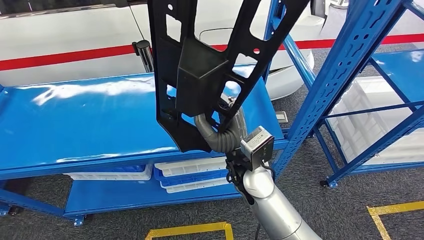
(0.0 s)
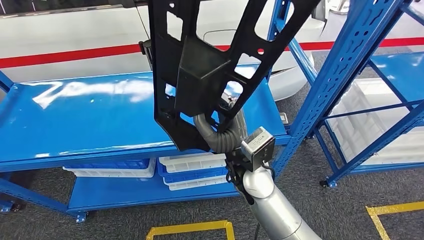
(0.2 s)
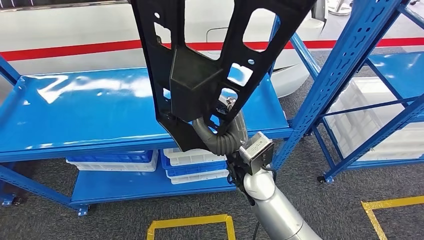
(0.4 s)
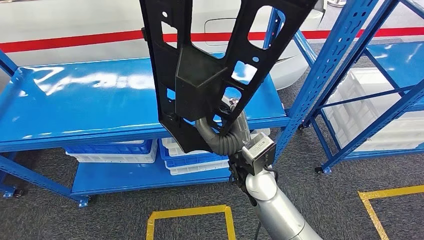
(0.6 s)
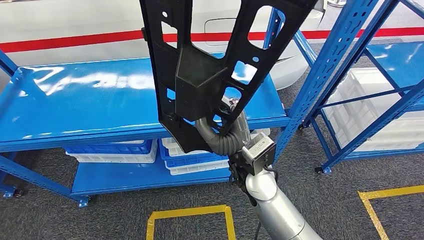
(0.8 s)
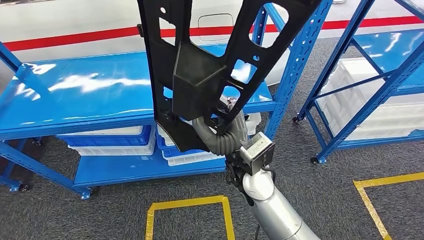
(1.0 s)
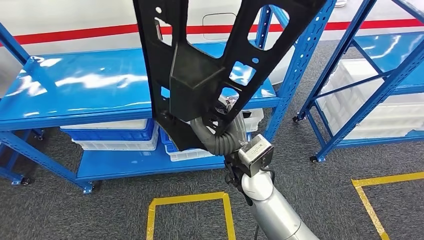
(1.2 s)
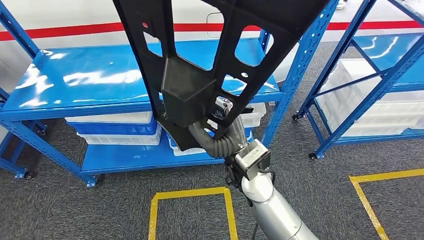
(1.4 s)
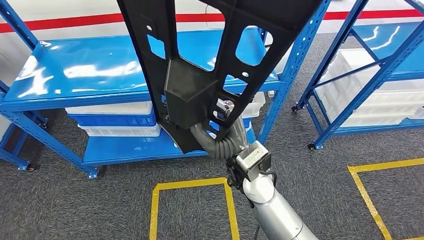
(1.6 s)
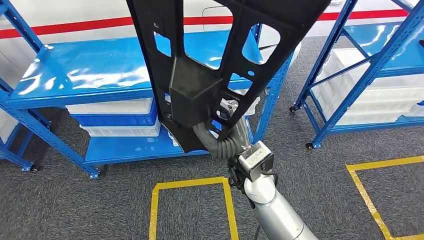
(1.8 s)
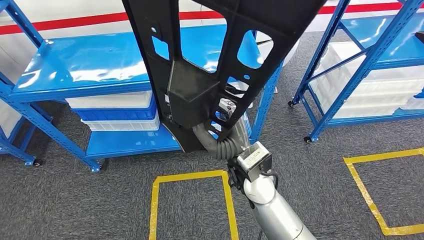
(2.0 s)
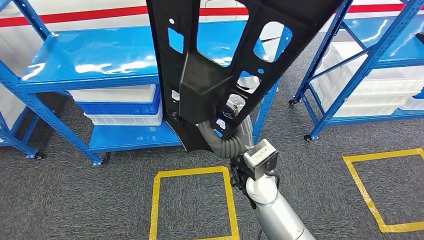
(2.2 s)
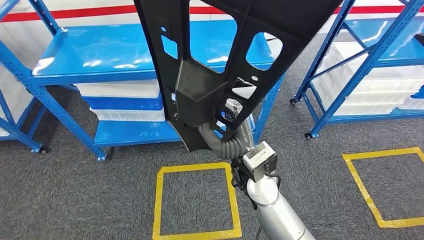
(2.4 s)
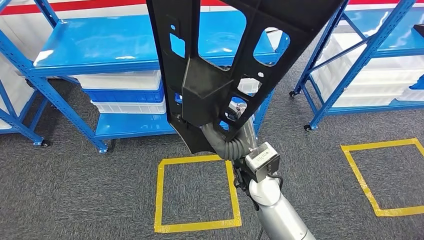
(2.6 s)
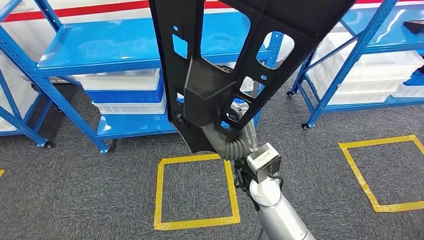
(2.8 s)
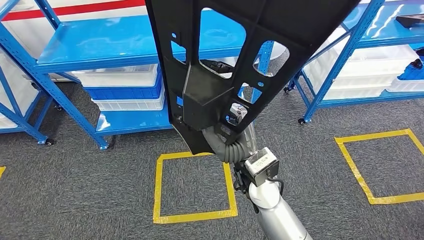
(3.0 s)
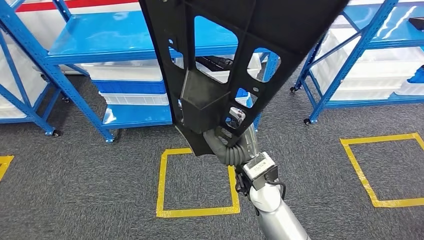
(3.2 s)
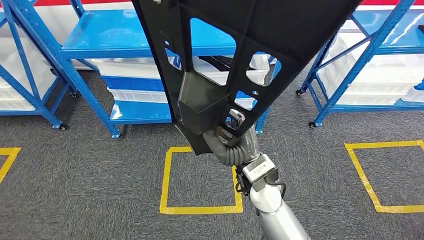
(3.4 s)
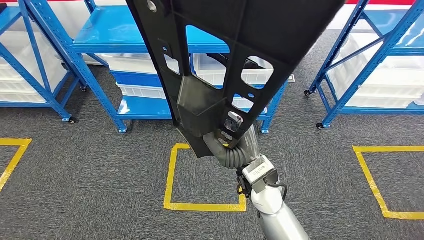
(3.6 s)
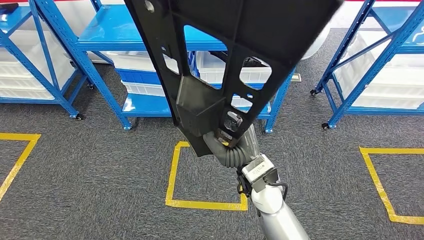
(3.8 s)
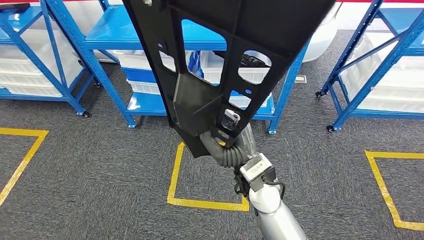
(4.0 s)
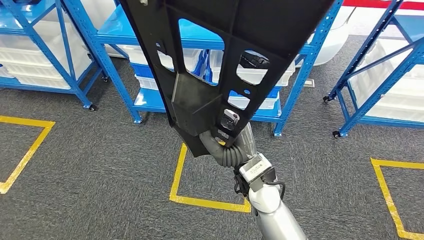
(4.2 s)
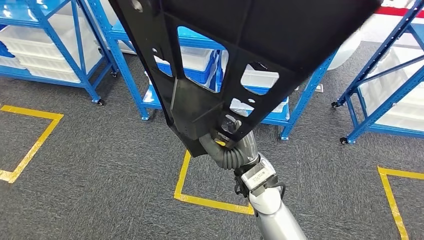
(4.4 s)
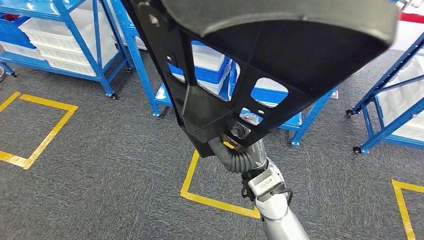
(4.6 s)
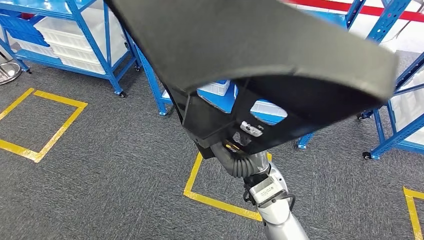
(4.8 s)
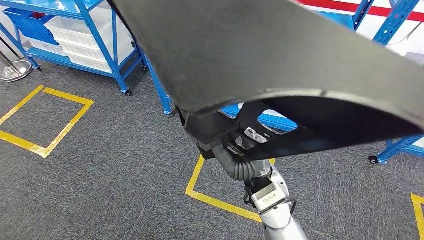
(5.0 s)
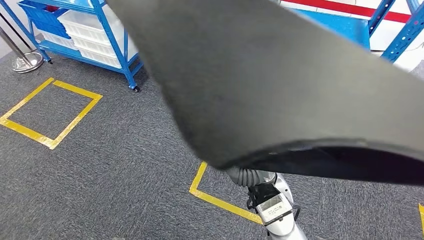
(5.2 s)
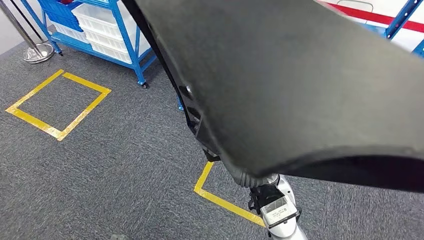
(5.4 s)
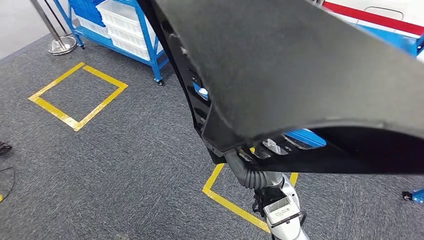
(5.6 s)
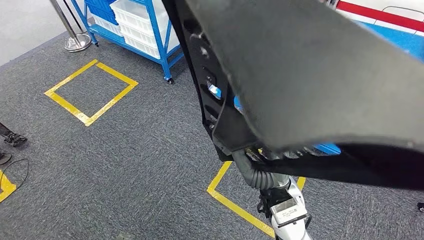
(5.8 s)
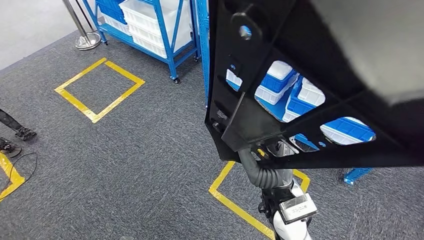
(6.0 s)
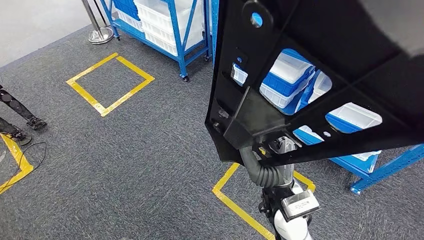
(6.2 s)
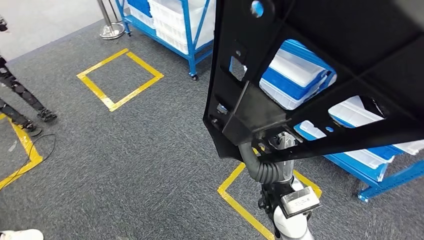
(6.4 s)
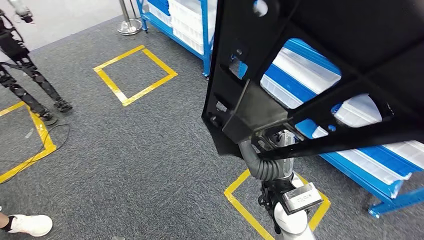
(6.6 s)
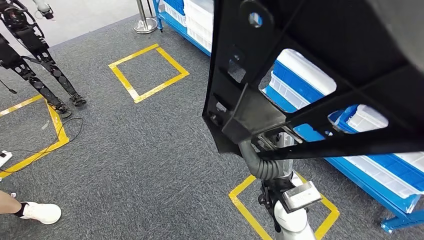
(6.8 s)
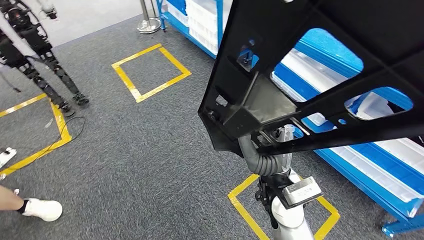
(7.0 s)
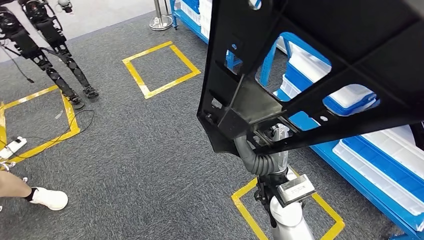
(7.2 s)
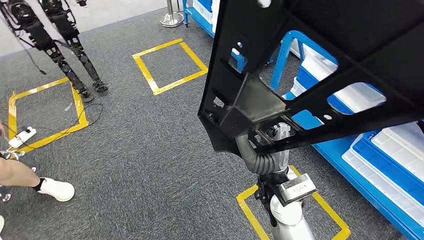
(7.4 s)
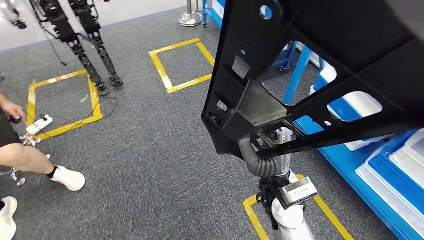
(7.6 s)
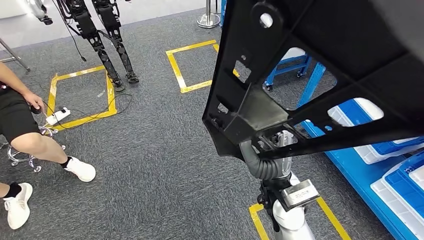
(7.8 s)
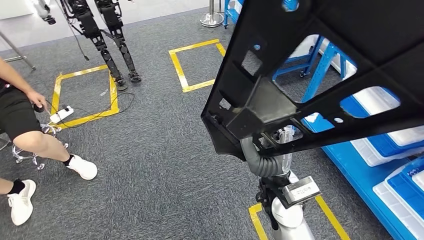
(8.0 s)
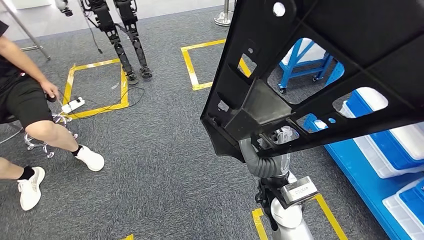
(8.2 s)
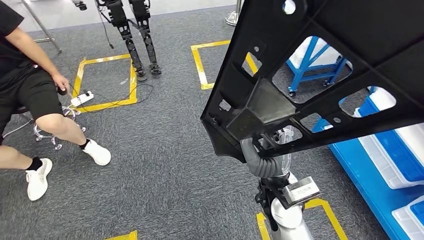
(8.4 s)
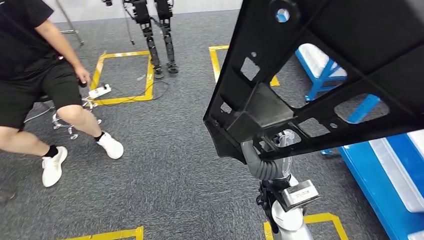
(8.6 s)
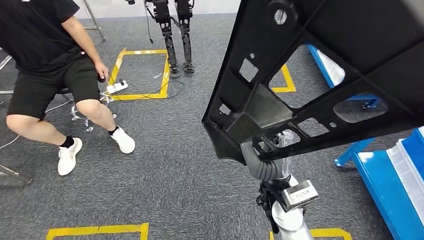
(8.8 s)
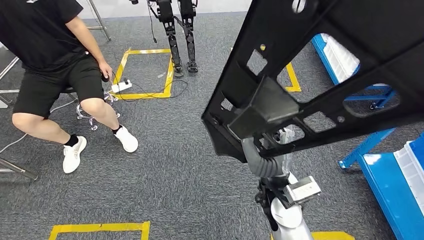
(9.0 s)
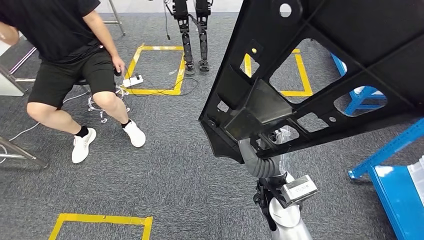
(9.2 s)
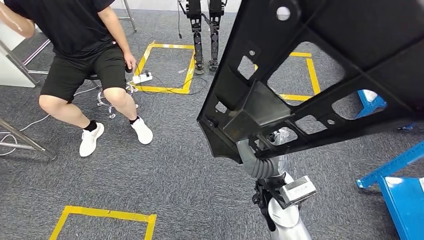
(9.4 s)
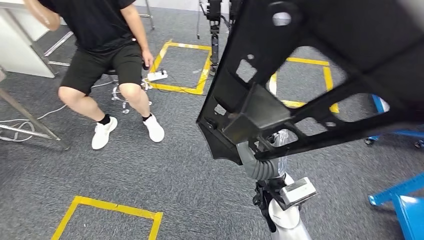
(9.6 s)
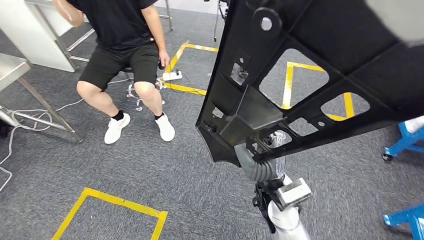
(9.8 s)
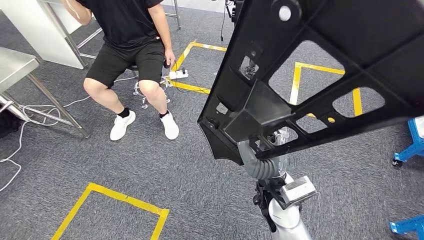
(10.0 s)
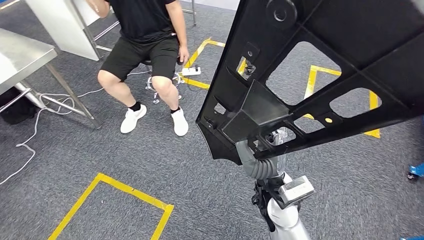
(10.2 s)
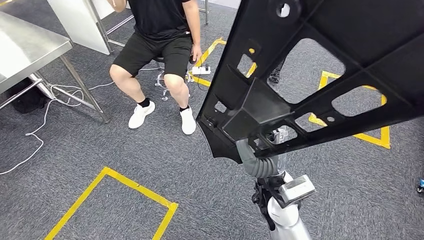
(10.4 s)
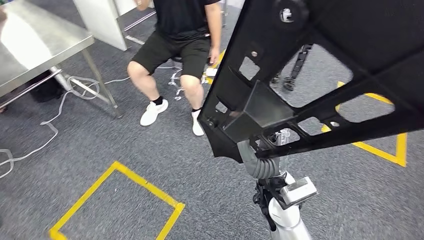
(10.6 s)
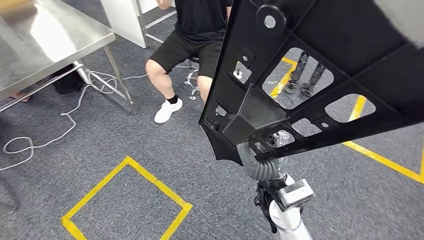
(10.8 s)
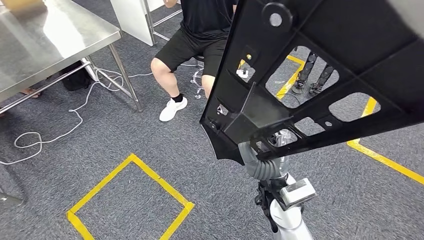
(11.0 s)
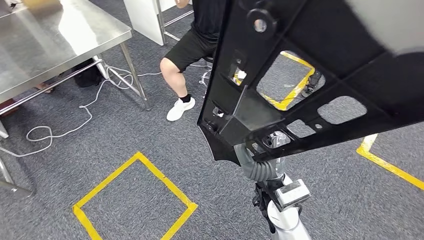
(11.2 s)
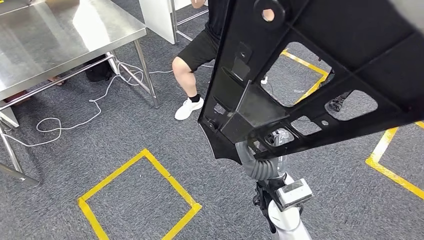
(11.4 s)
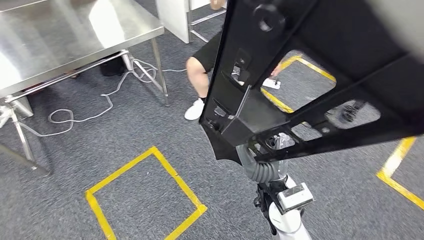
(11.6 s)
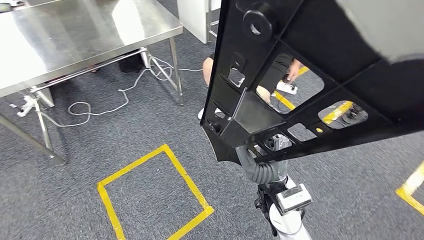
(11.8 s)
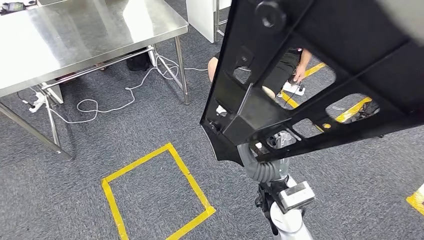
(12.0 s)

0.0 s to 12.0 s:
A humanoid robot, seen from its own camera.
Step, 0.0 to 2.0 s: Pick up the large material from the shelf.

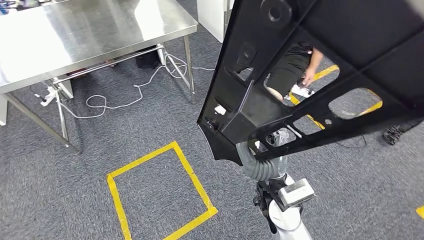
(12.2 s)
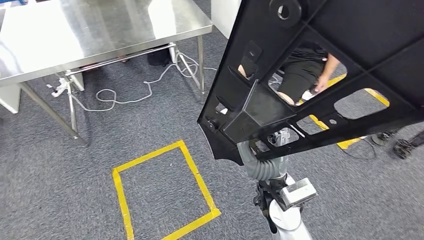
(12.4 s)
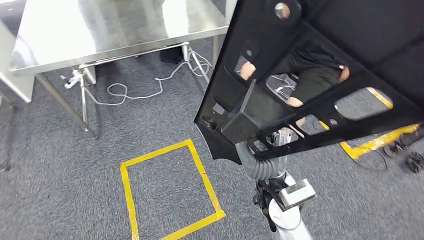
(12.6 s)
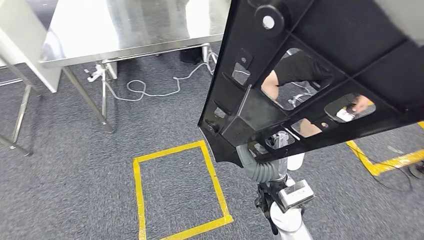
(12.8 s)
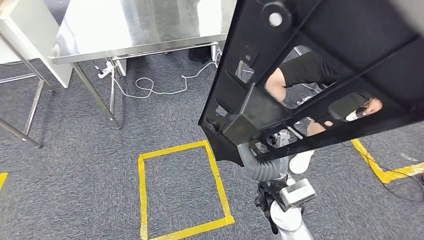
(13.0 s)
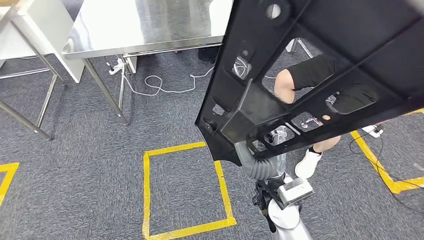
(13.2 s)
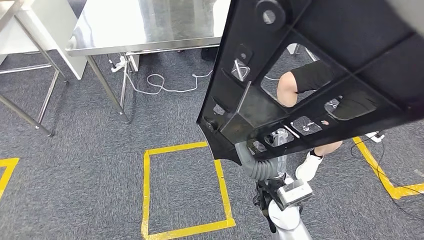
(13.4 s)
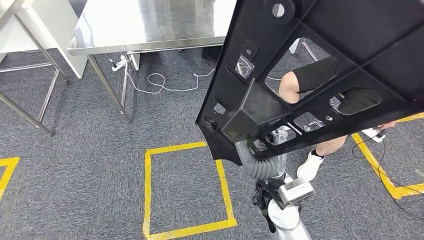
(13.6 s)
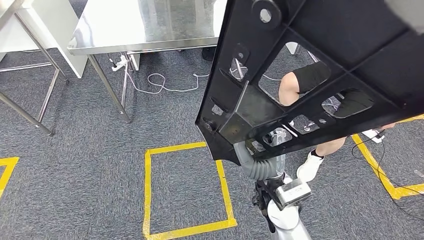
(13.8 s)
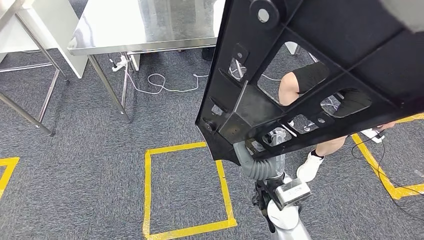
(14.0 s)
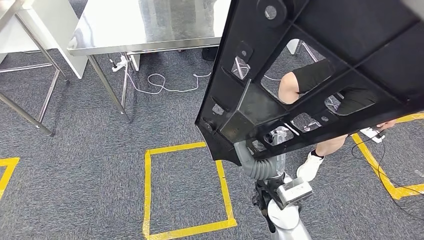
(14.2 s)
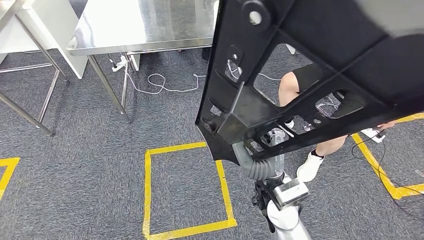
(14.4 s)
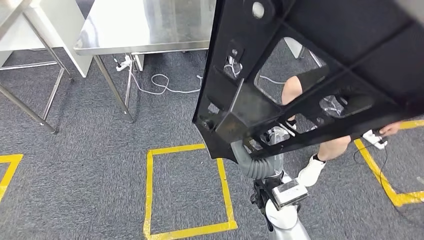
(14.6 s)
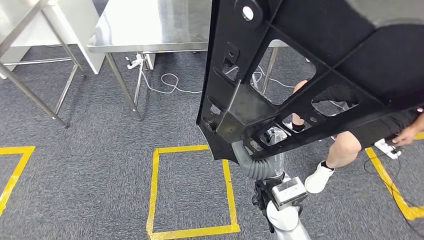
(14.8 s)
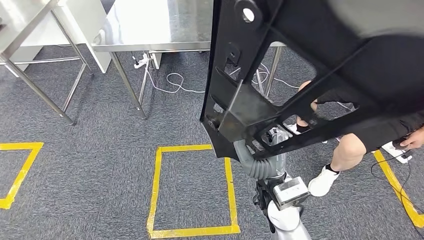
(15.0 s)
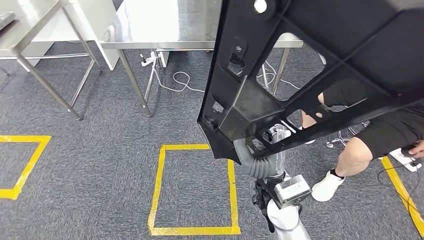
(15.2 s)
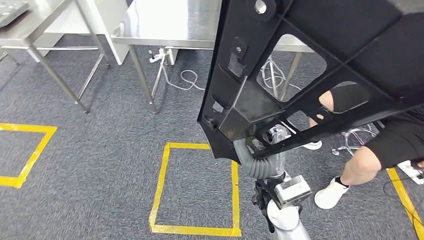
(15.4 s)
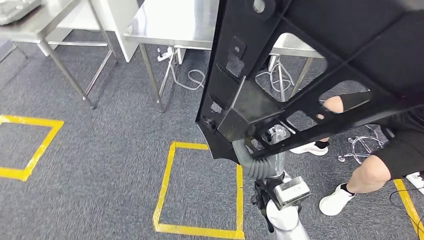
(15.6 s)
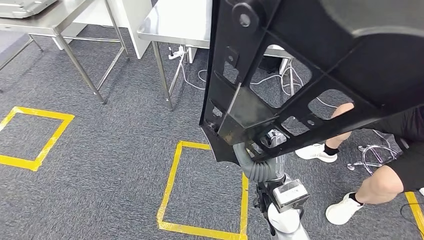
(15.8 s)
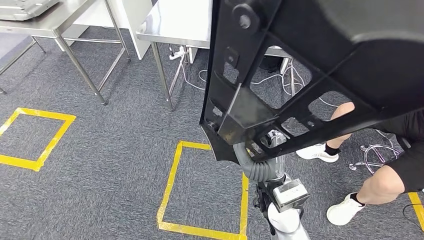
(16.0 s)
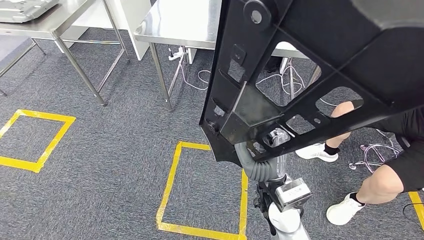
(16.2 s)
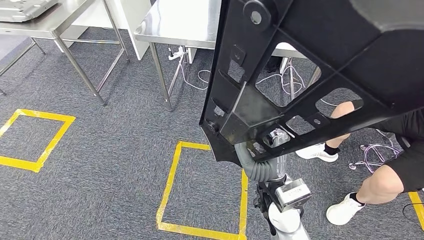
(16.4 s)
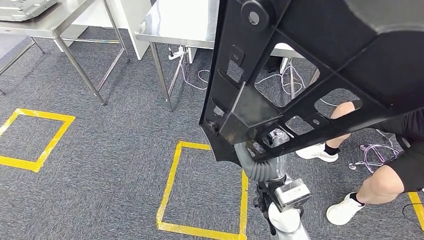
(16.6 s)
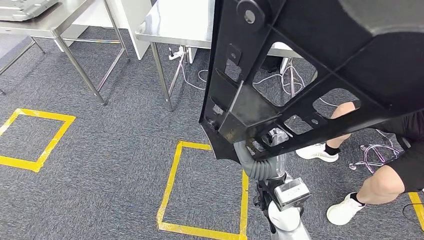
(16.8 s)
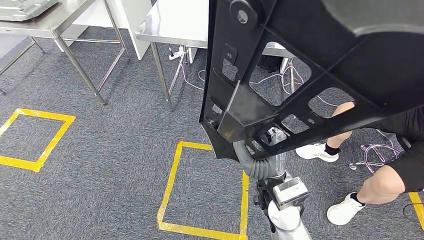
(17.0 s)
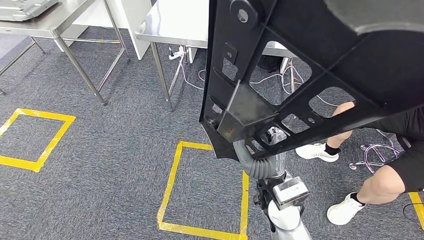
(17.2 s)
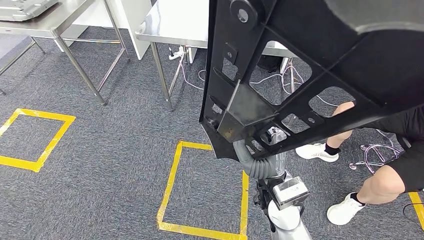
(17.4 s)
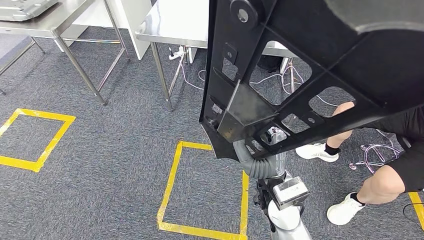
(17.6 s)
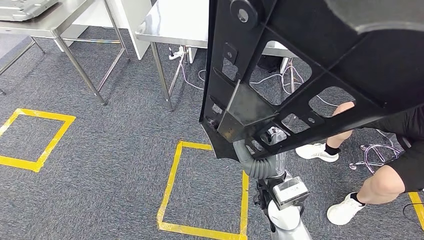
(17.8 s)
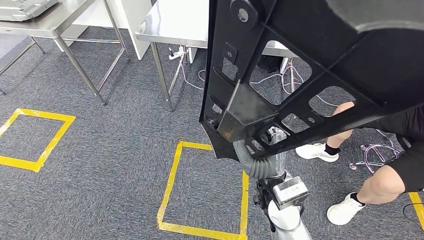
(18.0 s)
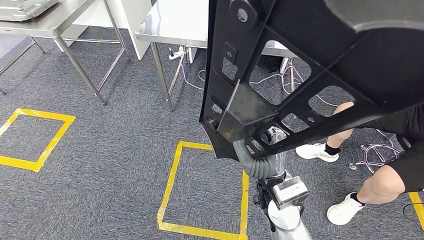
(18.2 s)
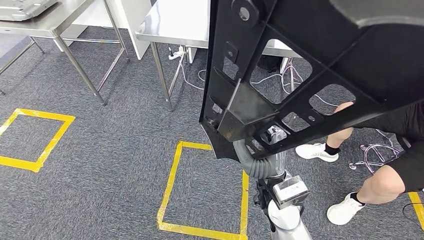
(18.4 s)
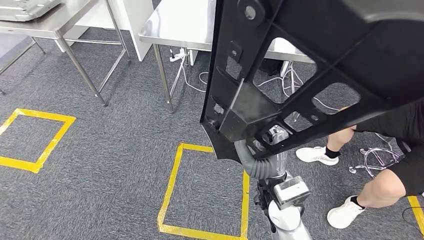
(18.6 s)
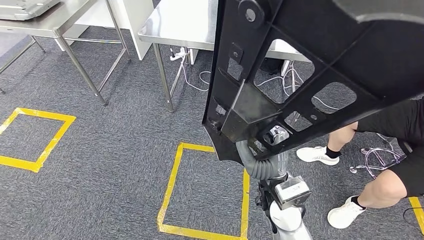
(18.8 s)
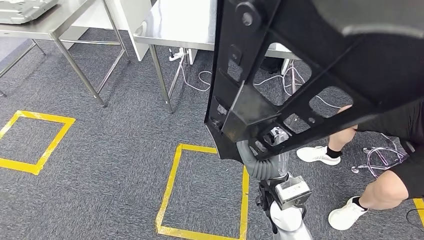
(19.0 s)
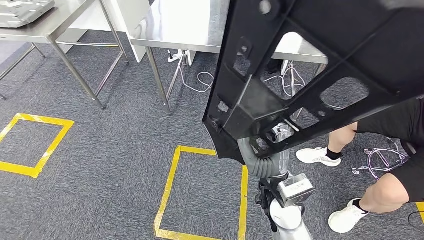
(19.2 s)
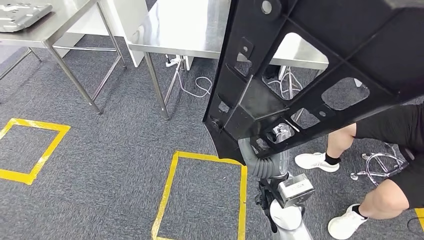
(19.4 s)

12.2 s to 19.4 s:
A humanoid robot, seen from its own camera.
16.6 to 18.0 s: The two hands keep their place.
